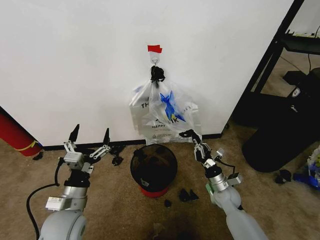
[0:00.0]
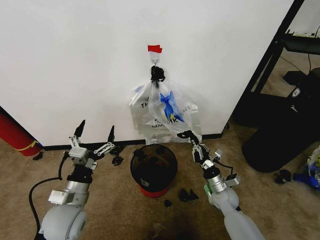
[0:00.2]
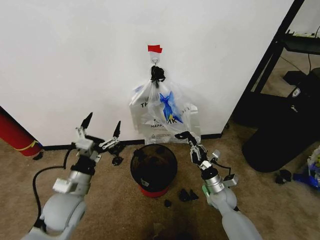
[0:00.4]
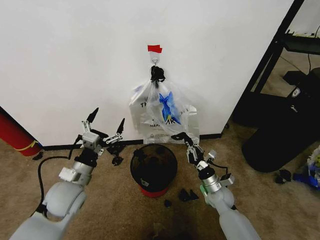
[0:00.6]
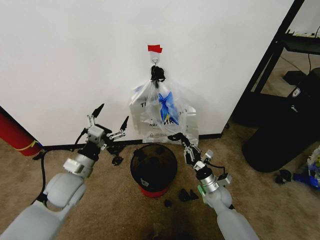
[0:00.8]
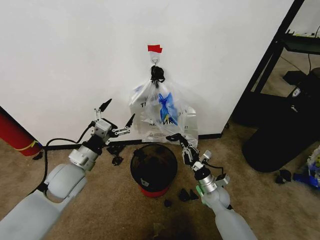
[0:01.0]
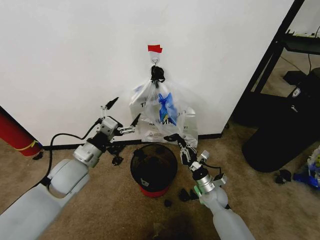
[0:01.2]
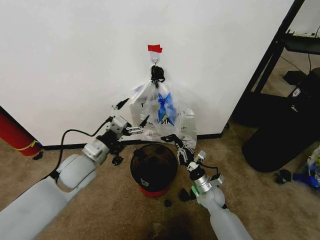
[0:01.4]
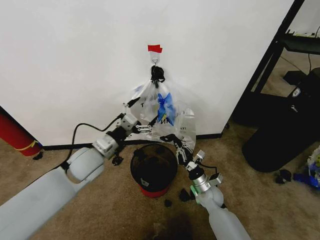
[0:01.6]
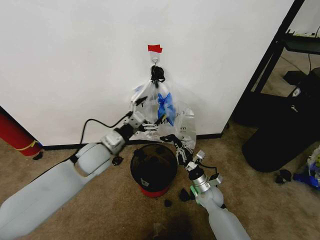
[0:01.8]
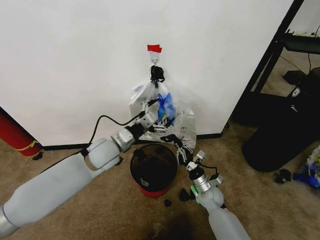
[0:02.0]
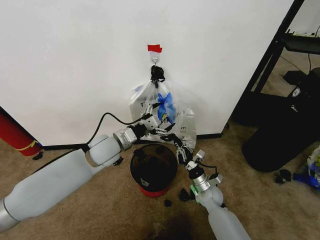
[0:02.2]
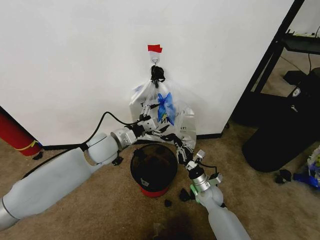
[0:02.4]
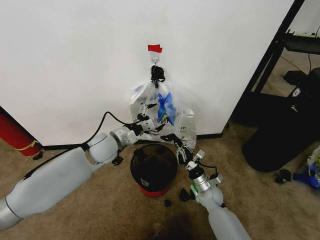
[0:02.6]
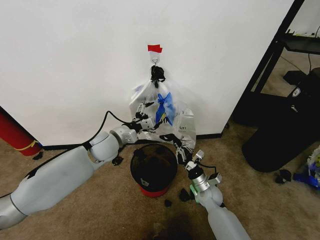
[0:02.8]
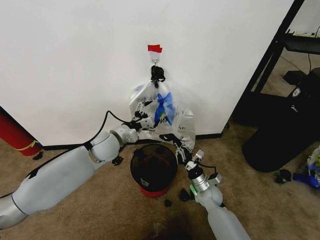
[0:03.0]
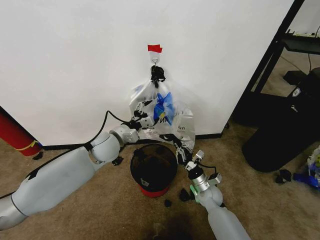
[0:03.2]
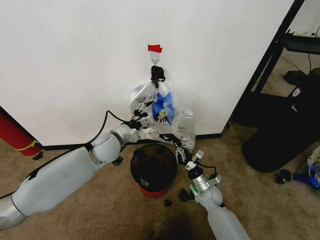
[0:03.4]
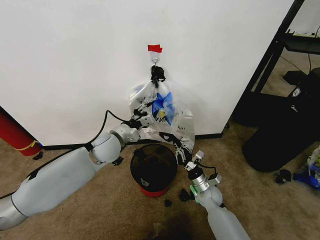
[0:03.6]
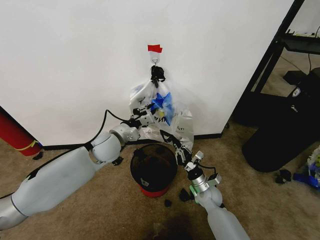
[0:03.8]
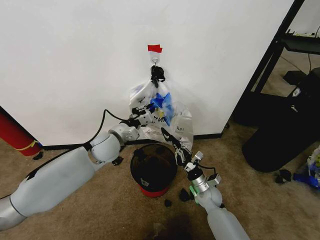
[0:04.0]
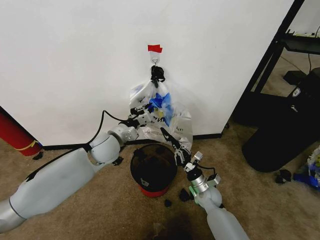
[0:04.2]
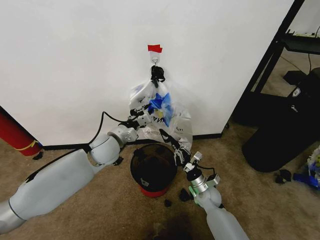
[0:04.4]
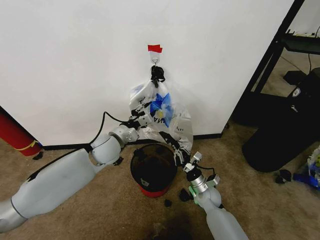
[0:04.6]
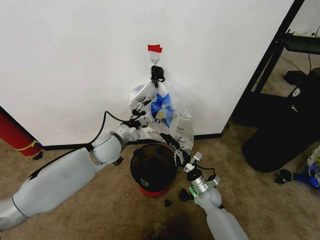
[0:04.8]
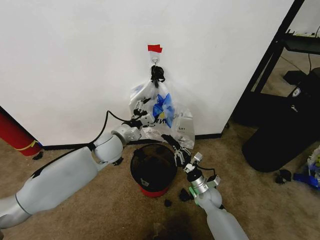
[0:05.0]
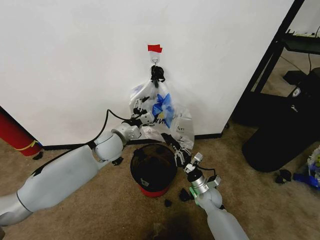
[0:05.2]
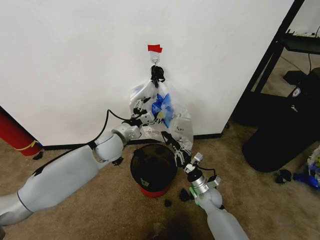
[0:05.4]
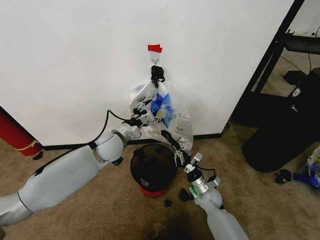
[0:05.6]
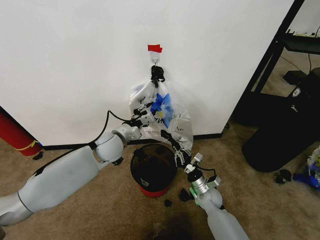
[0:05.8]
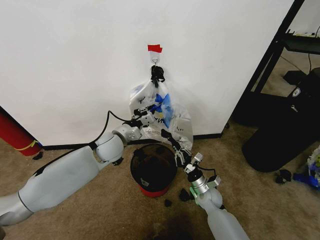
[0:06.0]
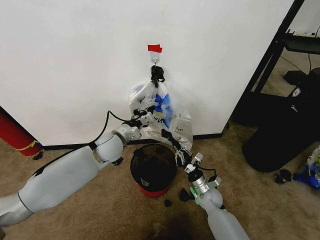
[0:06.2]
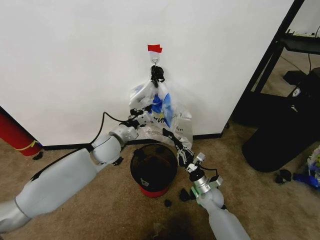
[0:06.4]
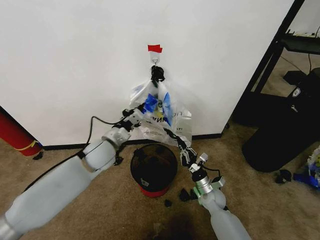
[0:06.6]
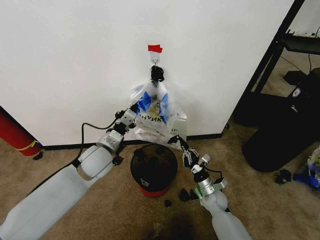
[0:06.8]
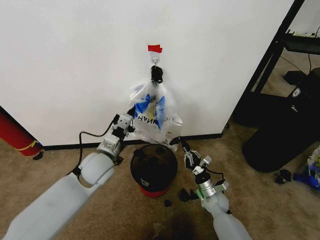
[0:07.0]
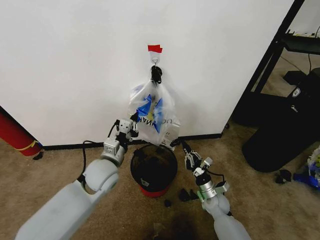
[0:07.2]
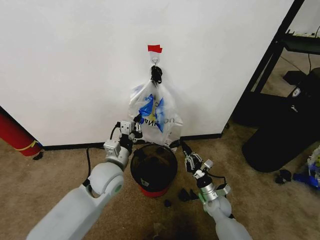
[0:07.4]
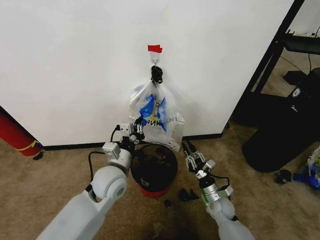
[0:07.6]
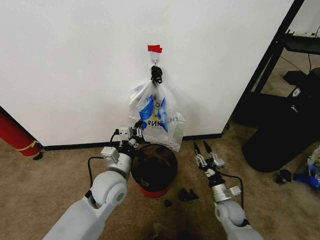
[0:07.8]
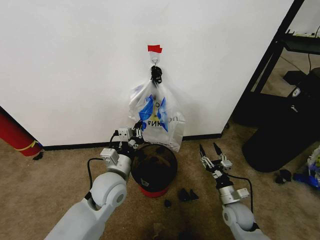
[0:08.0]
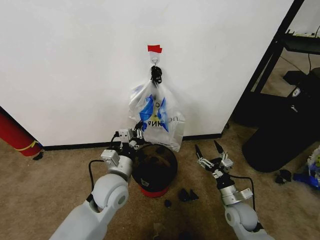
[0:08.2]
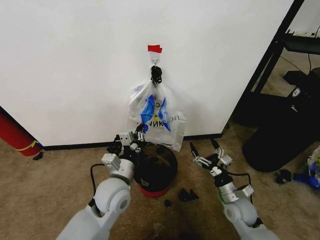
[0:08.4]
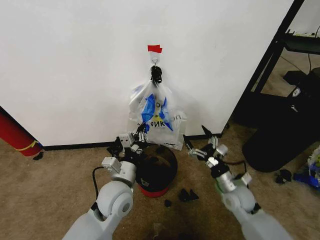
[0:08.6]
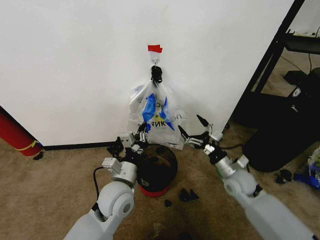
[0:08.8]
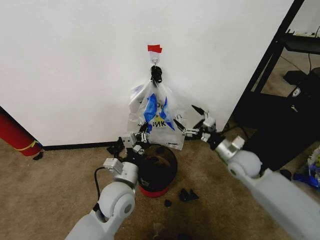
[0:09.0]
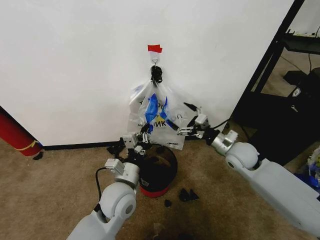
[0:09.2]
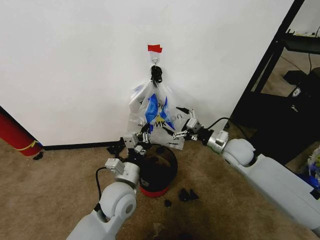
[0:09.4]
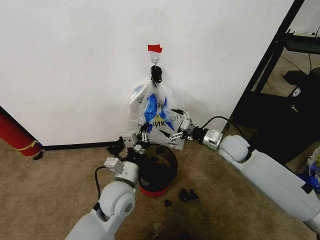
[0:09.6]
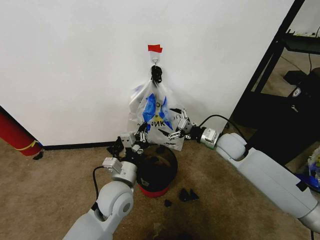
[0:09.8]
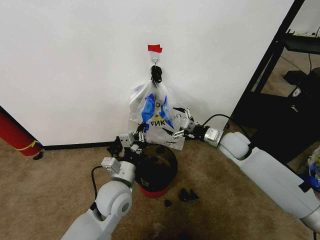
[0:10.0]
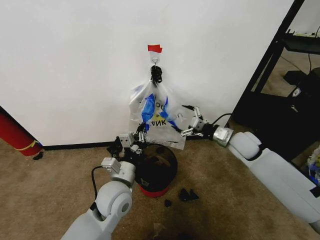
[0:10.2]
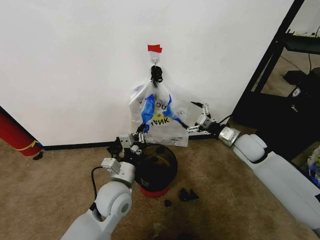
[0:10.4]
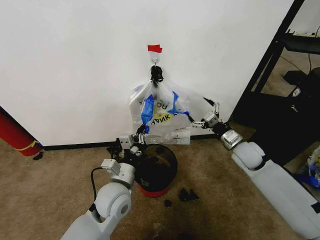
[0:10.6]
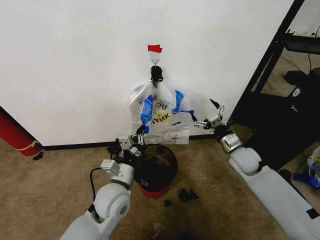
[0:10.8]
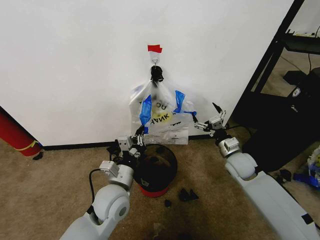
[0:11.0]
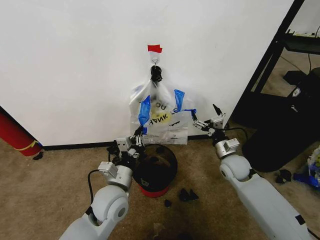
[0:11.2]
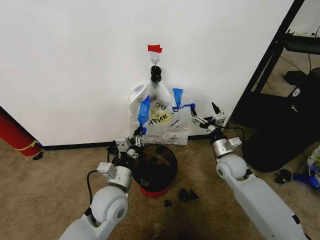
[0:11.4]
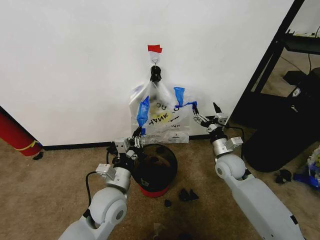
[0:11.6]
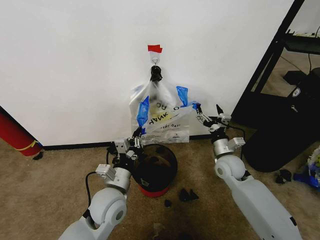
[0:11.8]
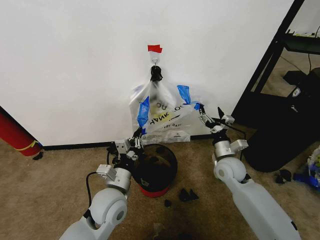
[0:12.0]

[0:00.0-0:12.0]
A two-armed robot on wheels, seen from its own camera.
Task of the whole recording: Pick up the garbage bag from the wall and place it over the trash bin.
0:00.0 to 0:01.6: The left gripper heads forward and upward, covering roughly 15 cm, while the right gripper goes some 5 cm to the left.
0:01.6 to 0:03.0: The left gripper heads forward, covering some 10 cm.
0:03.0 to 0:04.4: The left gripper closes its fingers.
0:04.4 to 0:06.0: The left gripper opens, then closes once more.
0:06.0 to 0:07.6: The right gripper shifts by approximately 5 cm; the left gripper moves backward, about 10 cm.
0:07.6 to 0:09.0: The right gripper travels upward by about 20 cm, and opens; the left gripper changes place by roughly 5 cm.
0:09.0 to 0:10.4: The right gripper travels forward by roughly 5 cm.
0:10.4 to 0:12.0: The right gripper shifts some 10 cm to the left and downward.

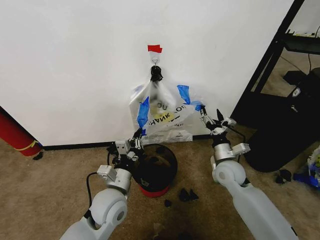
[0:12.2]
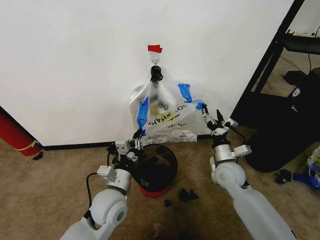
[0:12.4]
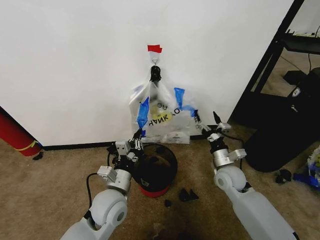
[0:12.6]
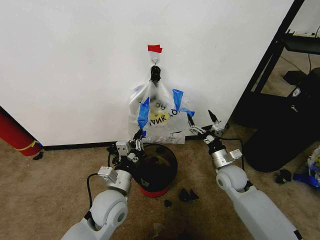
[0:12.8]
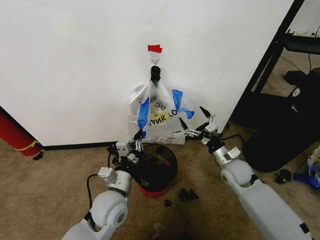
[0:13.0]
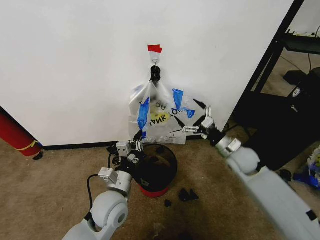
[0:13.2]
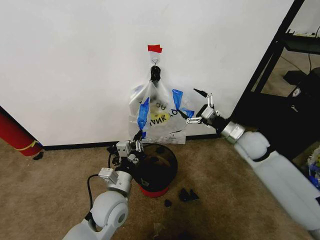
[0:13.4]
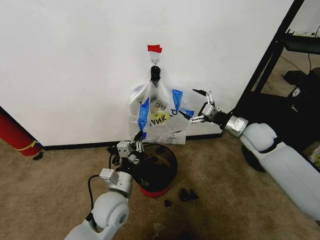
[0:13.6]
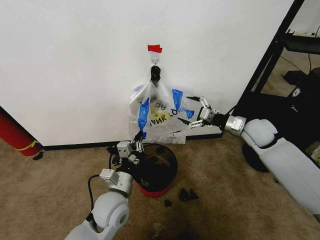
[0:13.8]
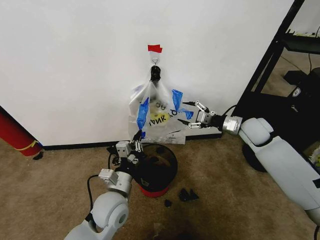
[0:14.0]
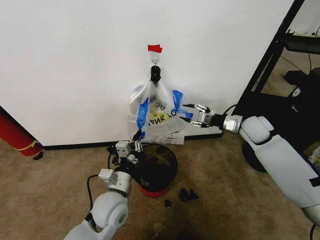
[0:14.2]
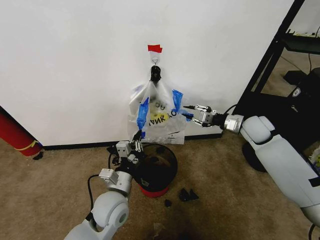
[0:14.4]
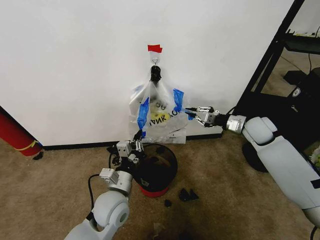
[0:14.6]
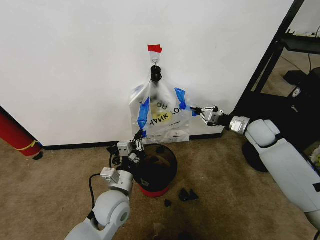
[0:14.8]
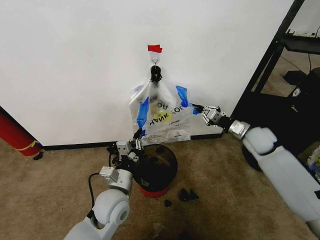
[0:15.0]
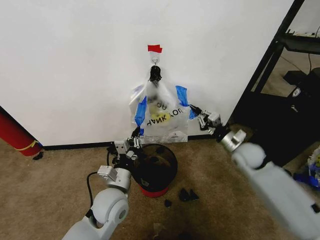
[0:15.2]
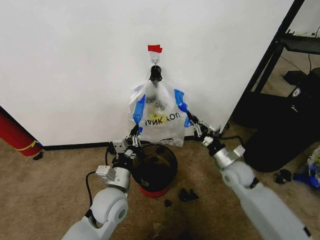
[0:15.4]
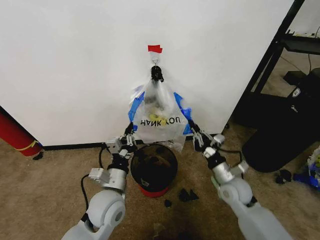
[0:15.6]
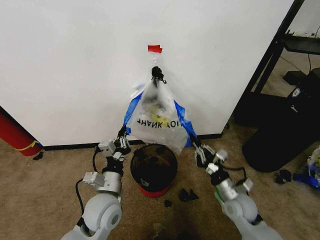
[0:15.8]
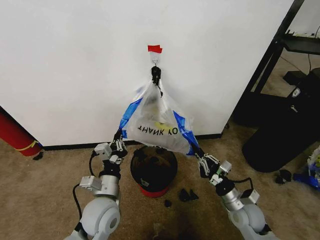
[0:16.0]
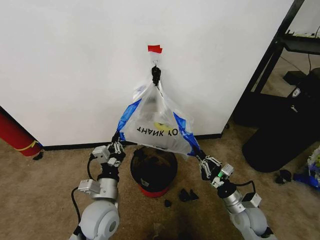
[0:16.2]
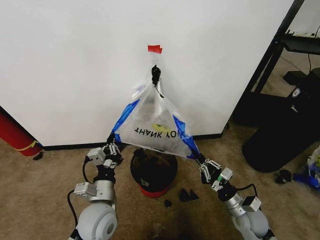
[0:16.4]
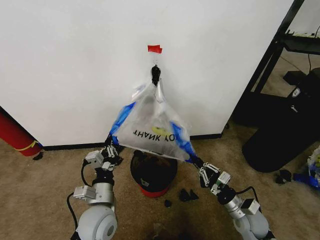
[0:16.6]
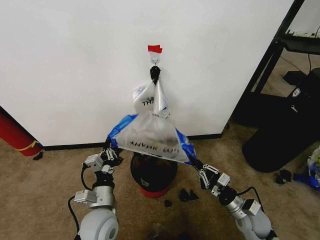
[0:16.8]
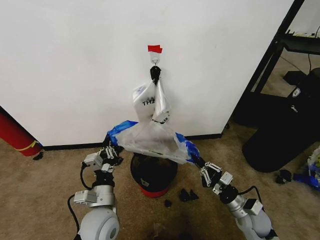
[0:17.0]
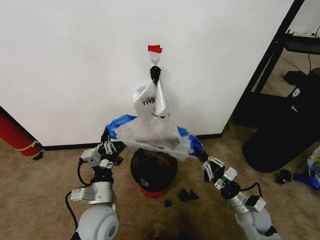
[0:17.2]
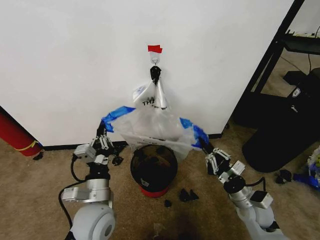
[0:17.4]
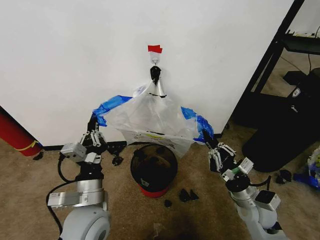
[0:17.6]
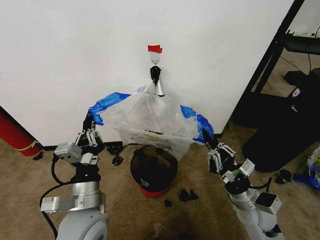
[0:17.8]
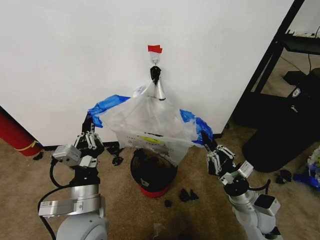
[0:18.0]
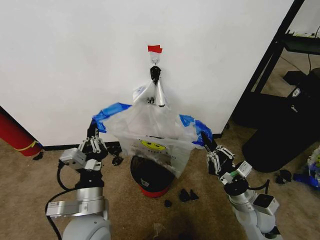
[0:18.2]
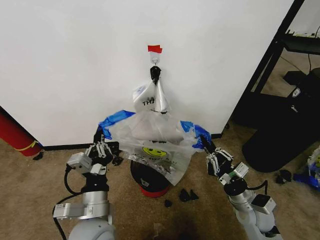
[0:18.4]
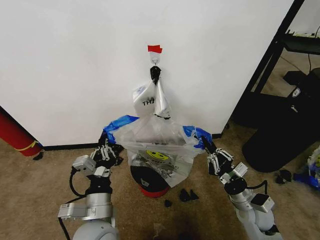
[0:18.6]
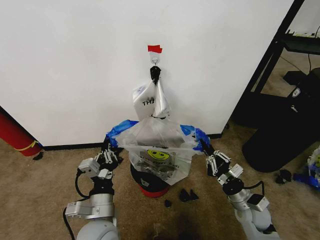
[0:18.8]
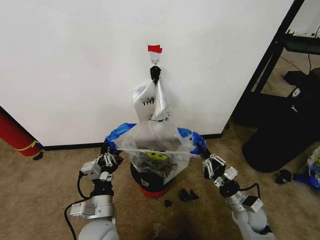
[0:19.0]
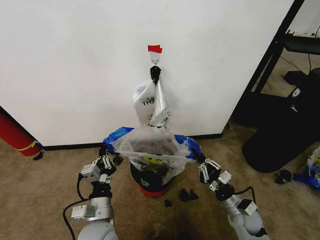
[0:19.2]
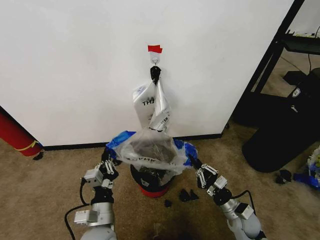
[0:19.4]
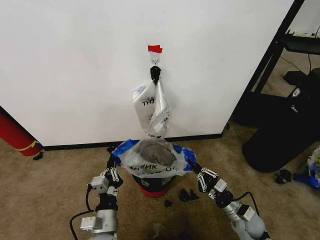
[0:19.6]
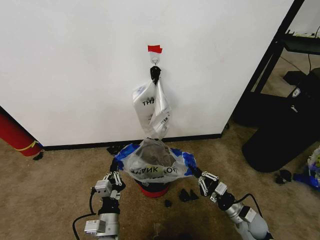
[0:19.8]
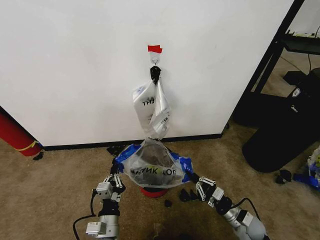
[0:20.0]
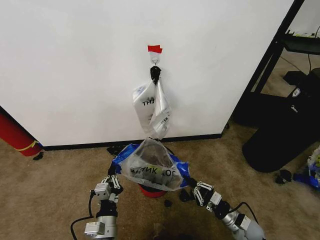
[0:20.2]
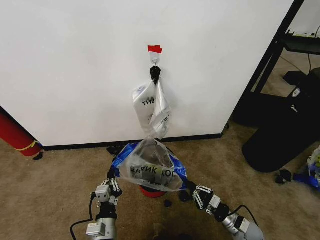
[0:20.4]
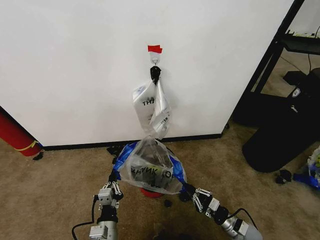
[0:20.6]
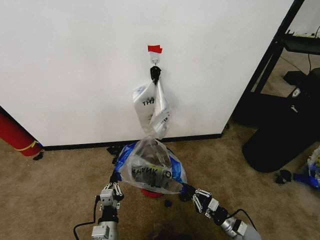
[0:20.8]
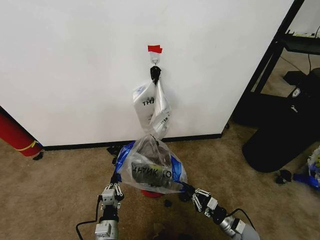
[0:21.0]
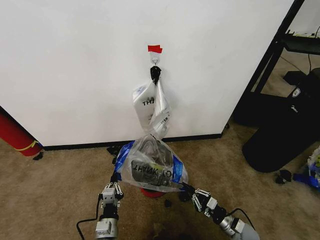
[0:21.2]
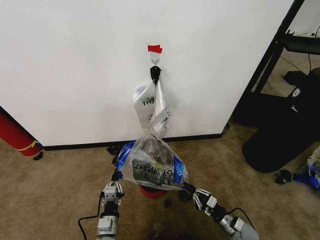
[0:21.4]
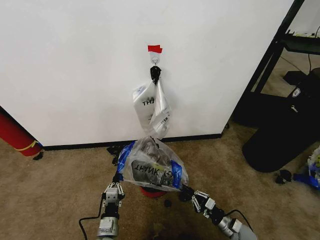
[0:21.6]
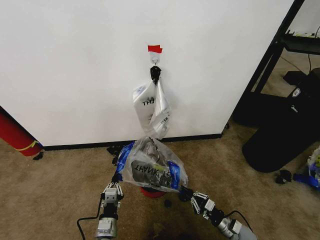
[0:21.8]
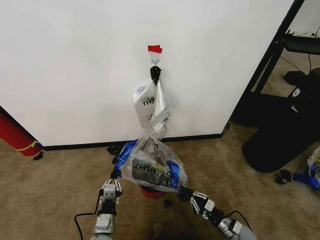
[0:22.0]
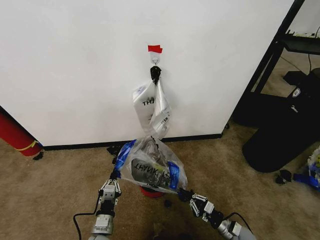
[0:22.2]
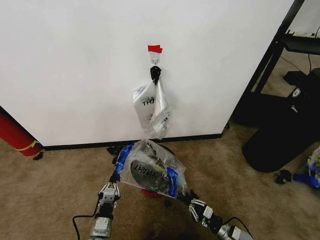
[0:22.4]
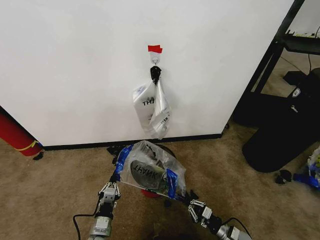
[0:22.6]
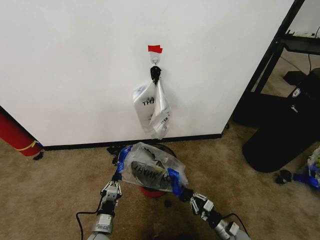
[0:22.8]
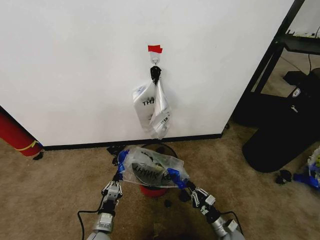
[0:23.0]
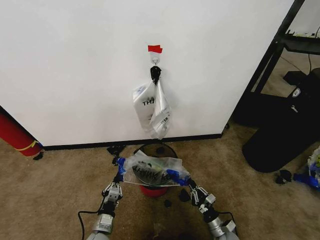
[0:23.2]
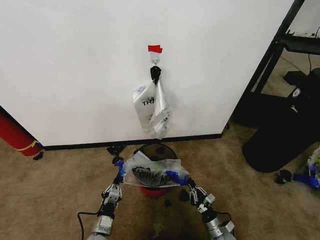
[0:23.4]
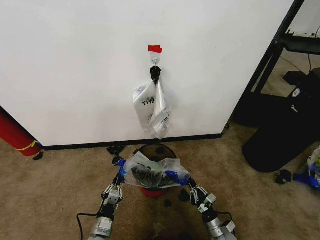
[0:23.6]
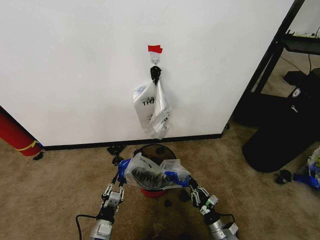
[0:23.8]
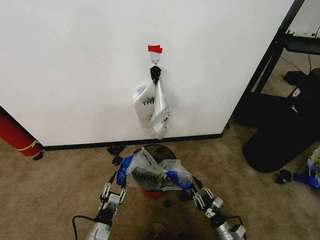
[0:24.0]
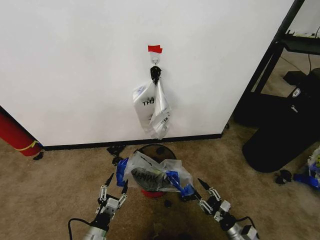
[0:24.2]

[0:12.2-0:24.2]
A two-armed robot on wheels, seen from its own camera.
Task of the whole recording: Pick up the garbage bag from the wall and place it over the trash bin.
0:12.2 to 0:13.8: The right gripper travels upward, to the right and forward by about 15 cm.
0:13.8 to 0:15.2: The right gripper is displaced downward by about 10 cm, and closes up.
0:15.2 to 0:16.6: The right gripper goes approximately 20 cm backward and downward. The left gripper moves approximately 5 cm.
0:16.6 to 0:18.2: The grippers both shift upward by roughly 10 cm.
0:18.2 to 0:19.8: The grippers both shift downward by approximately 15 cm.
0:19.8 to 0:21.2: Both grippers travel together downward, approximately 10 cm.
0:21.2 to 0:22.6: The grippers make only small movements.
0:22.6 to 0:24.2: The right gripper travels to the left and back again, about 5 cm each way, and opens up, while the left gripper opens its fingers.
